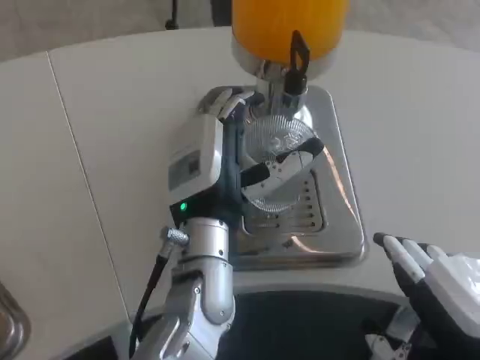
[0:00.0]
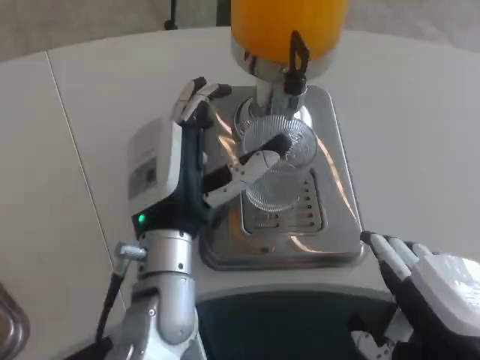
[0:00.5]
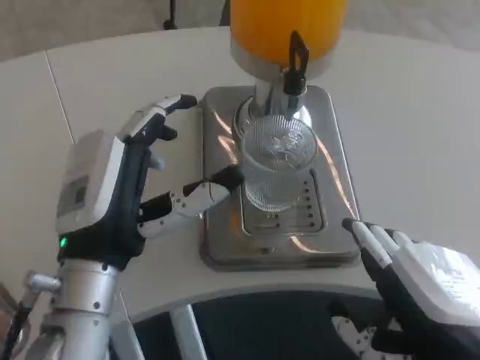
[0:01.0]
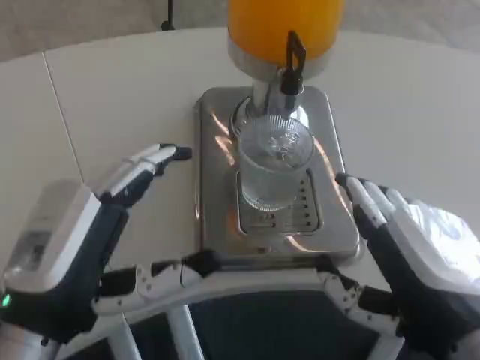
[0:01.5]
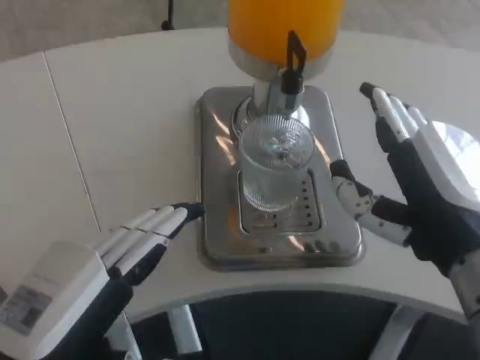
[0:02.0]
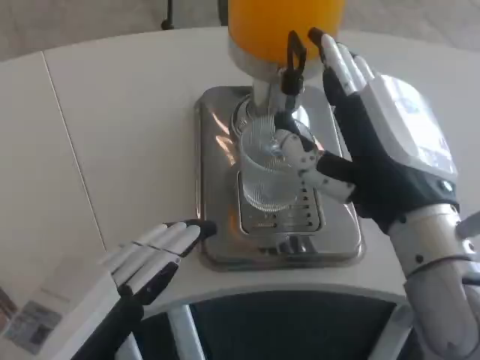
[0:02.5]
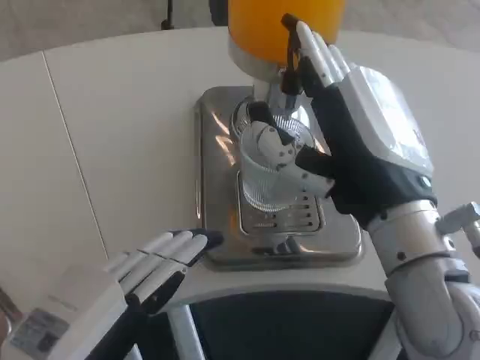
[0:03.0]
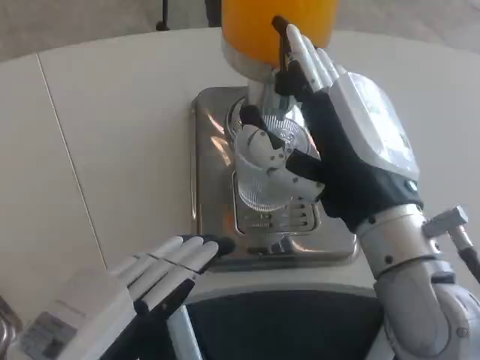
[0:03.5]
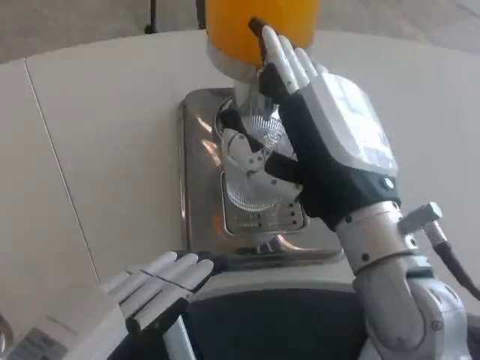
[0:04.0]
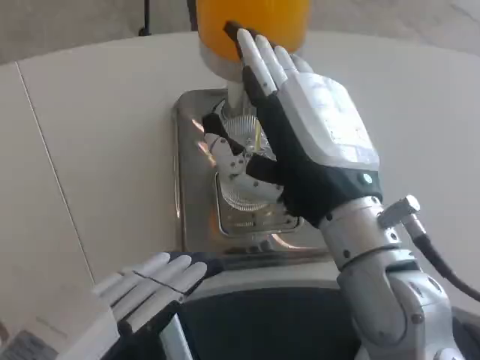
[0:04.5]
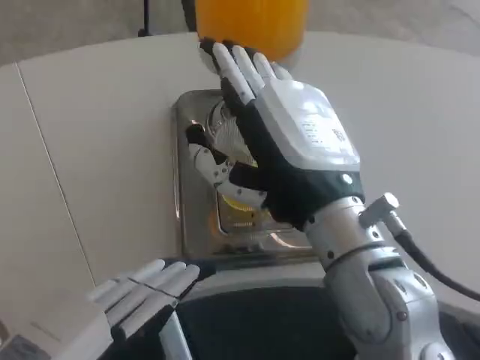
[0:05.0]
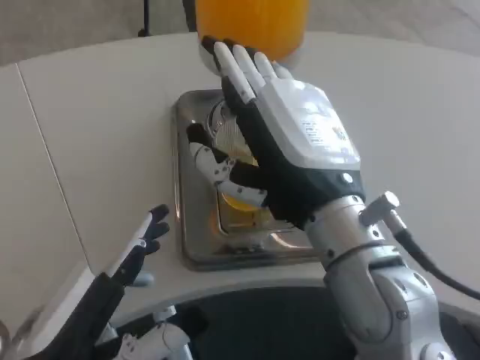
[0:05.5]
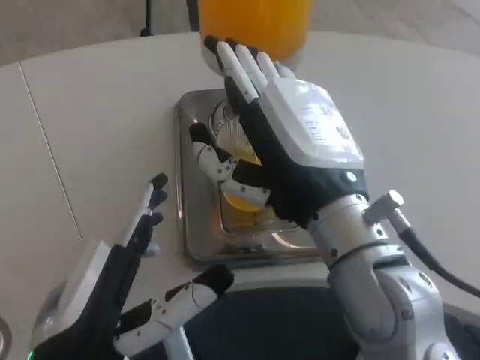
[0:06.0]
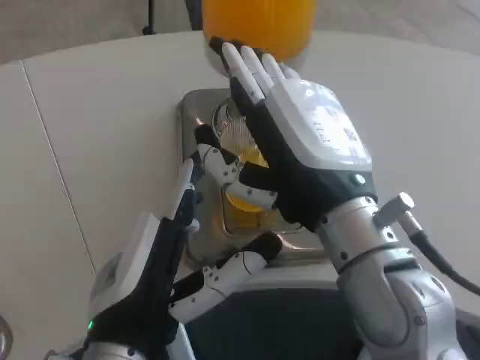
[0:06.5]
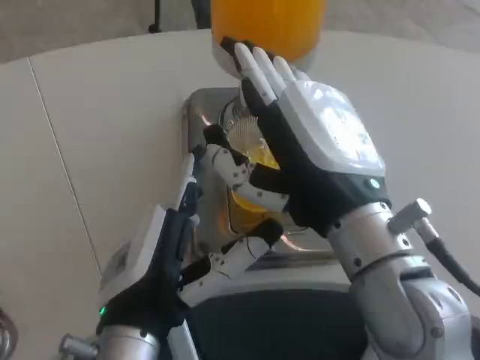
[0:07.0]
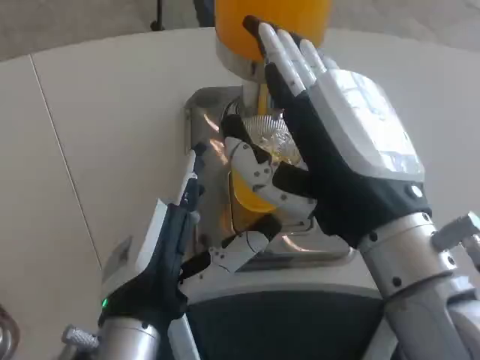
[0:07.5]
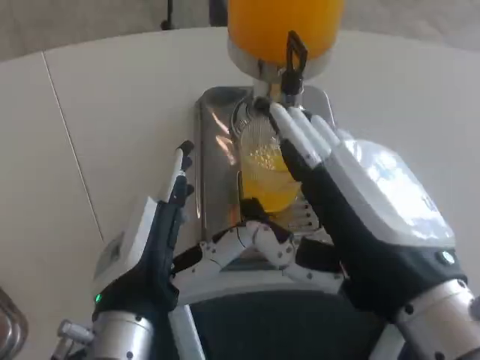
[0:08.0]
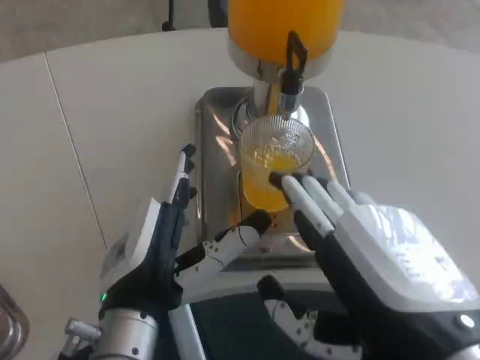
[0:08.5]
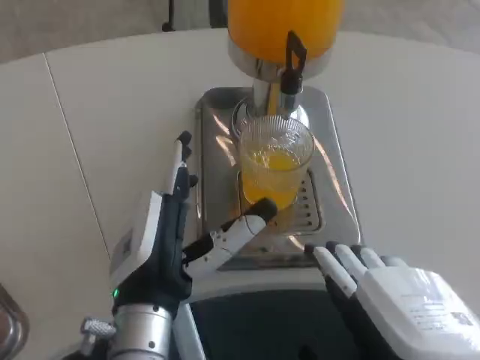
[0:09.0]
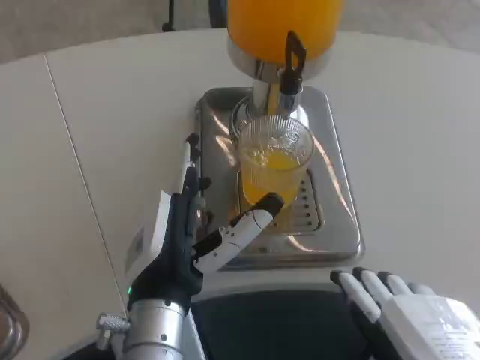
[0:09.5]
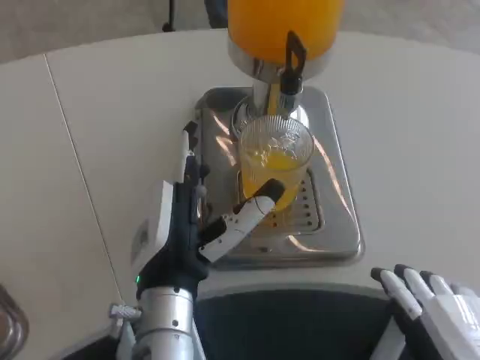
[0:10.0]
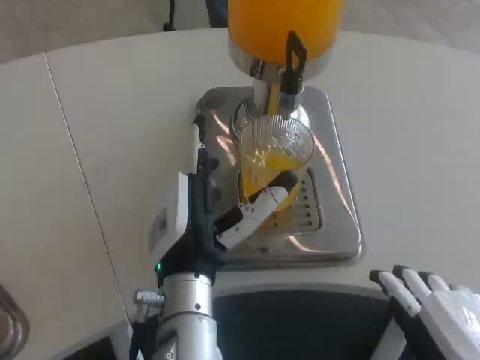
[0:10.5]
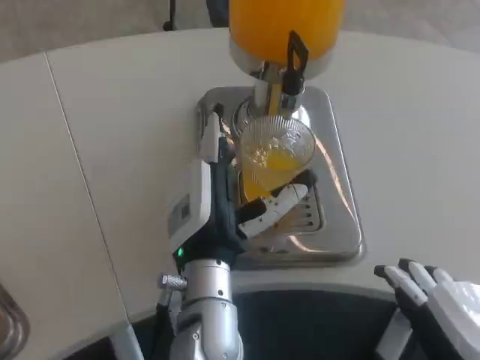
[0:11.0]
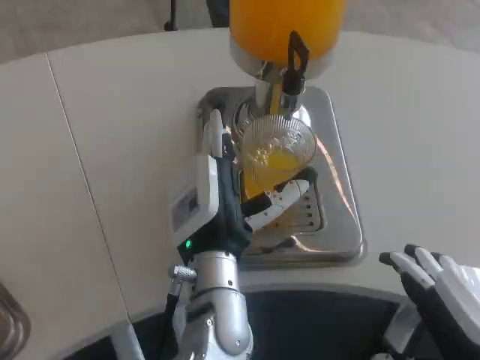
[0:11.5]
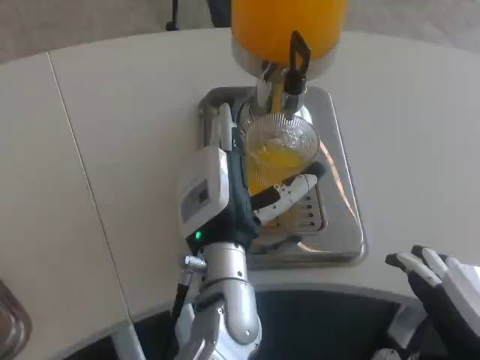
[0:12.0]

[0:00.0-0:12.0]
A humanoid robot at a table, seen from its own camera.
Task of the whole recording: Grasp the cup under the faucet to collect the drink, then remove the cup.
0:00.0 to 0:02.0: The right hand travels forward by about 5 cm; the left hand heads to the left and backward, covering some 25 cm.
0:02.0 to 0:04.0: The right hand heads to the left, covering approximately 5 cm.
0:04.0 to 0:06.0: The left hand heads to the right, covering roughly 5 cm.
0:06.0 to 0:08.0: The right hand heads backward, covering some 10 cm, while the left hand shifts some 5 cm forward.
0:08.0 to 0:10.0: The left hand changes place by some 5 cm. Meanwhile the right hand heads backward, covering approximately 5 cm.
0:10.0 to 0:12.0: The left hand travels forward and to the right by roughly 10 cm.

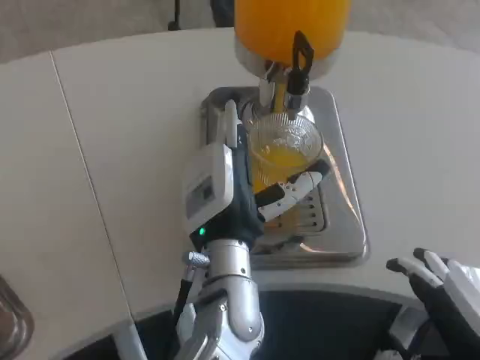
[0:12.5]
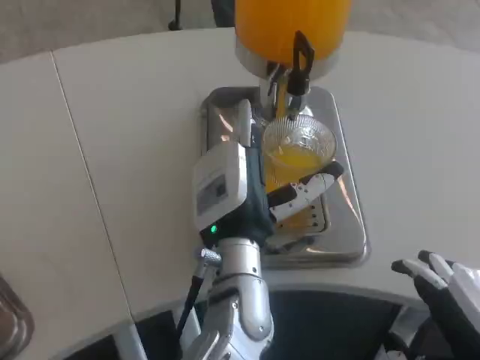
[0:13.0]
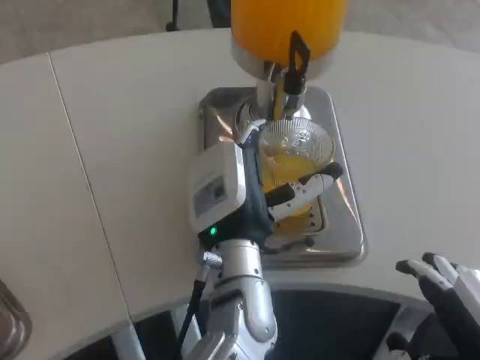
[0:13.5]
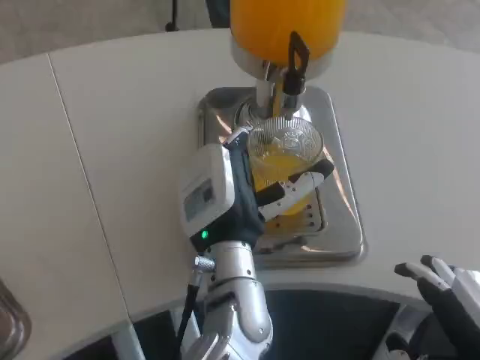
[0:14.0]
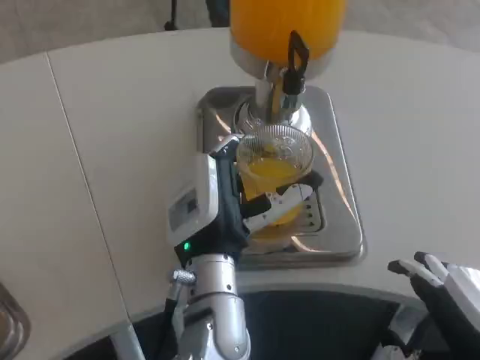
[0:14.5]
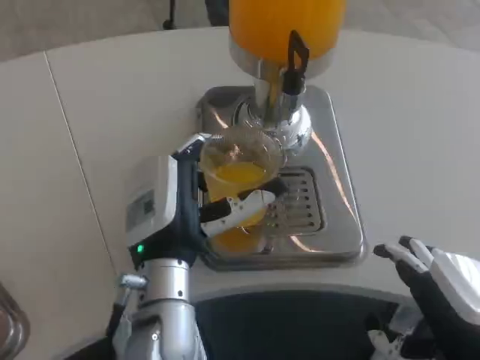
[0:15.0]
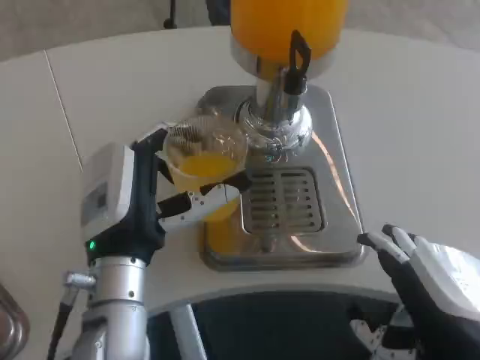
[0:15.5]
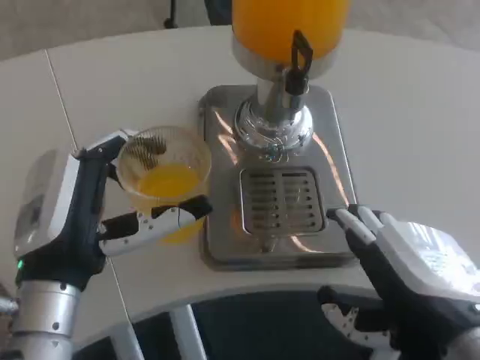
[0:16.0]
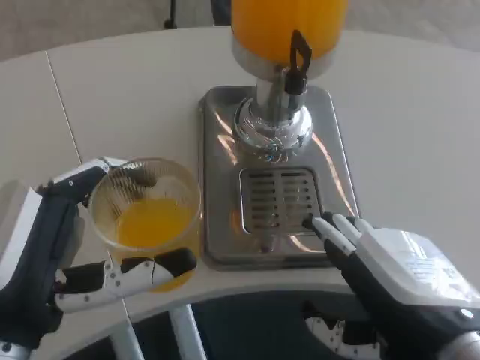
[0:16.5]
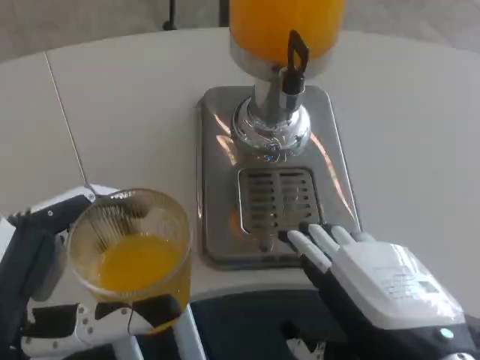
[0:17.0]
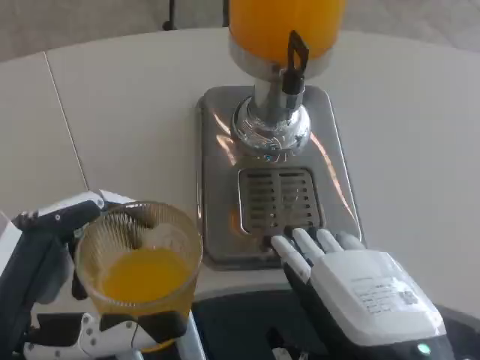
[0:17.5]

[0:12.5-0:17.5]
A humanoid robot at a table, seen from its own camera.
Task of the whole recording: Grasp the cup under the faucet to collect the drink, then remove the cup.
0:12.5 to 0:15.0: The left hand shifts some 5 cm to the left.
0:15.0 to 0:17.5: The right hand shifts by about 5 cm; the left hand travels backward and to the left by approximately 20 cm.

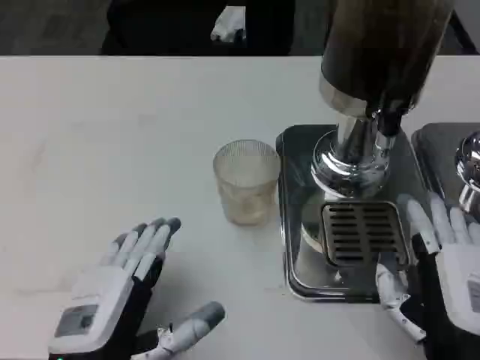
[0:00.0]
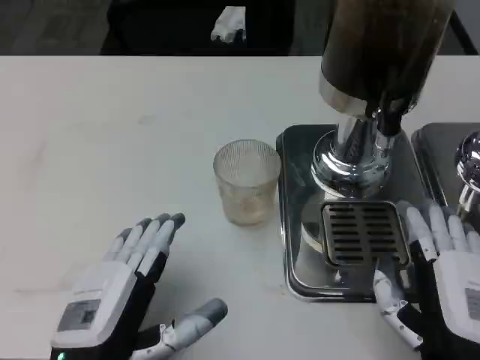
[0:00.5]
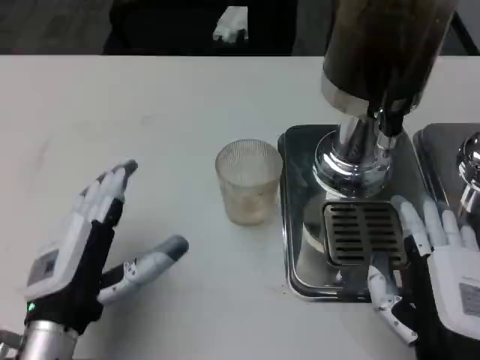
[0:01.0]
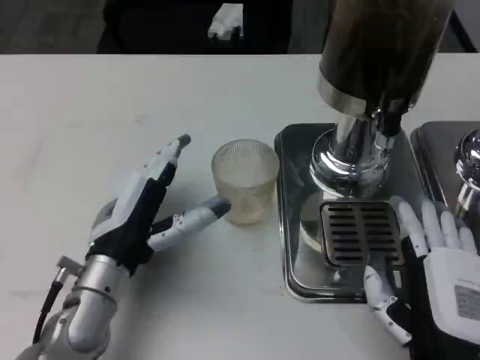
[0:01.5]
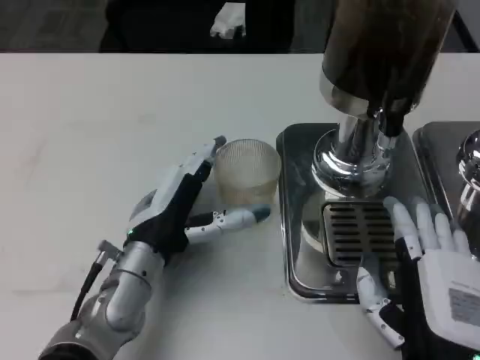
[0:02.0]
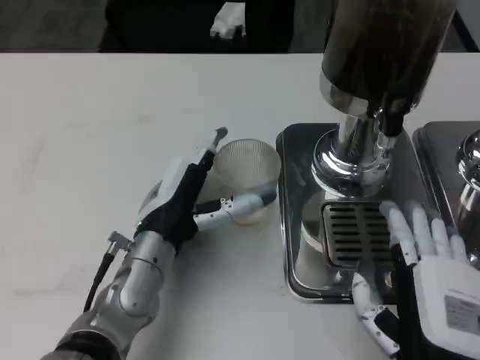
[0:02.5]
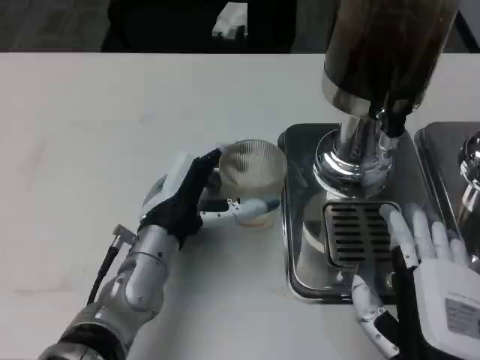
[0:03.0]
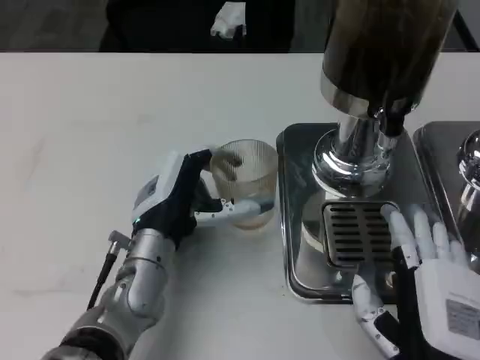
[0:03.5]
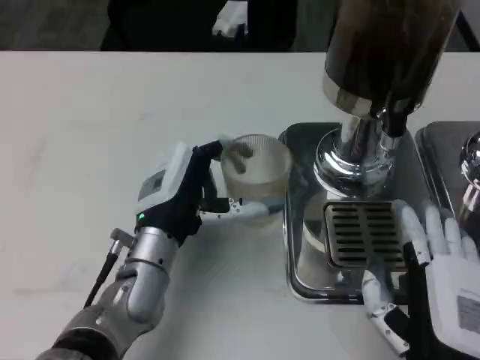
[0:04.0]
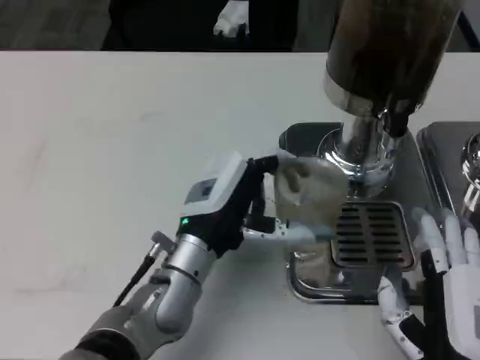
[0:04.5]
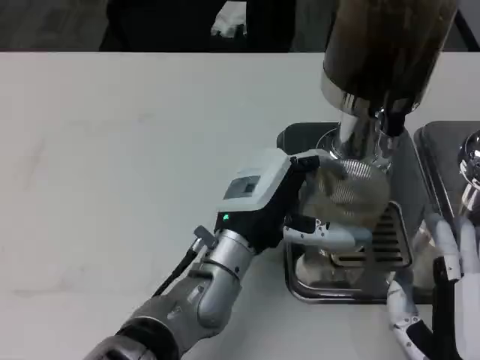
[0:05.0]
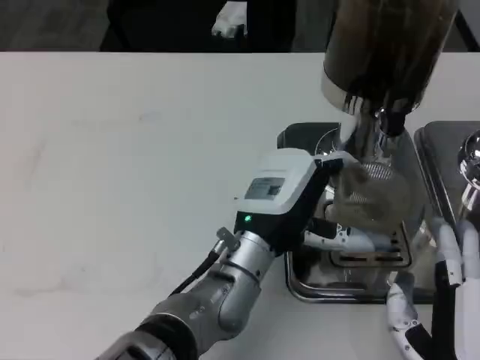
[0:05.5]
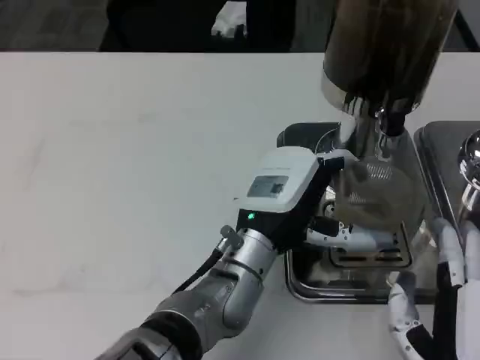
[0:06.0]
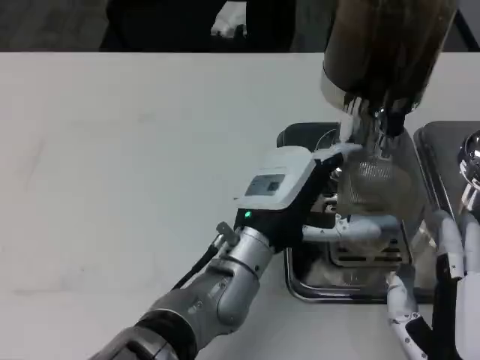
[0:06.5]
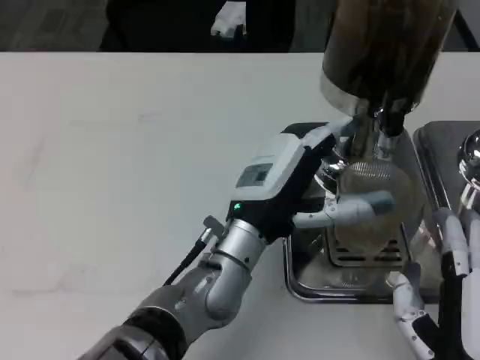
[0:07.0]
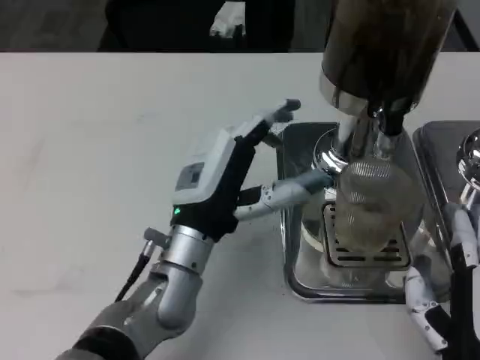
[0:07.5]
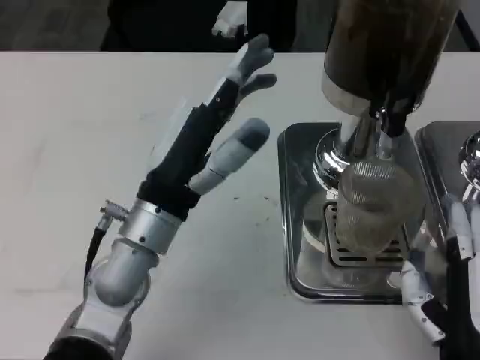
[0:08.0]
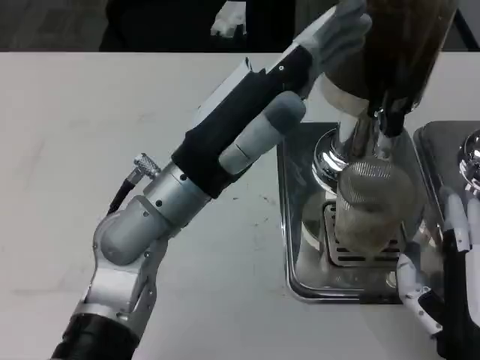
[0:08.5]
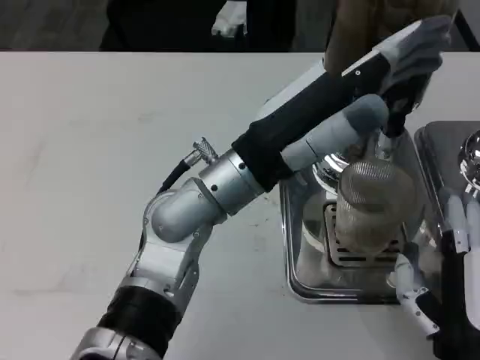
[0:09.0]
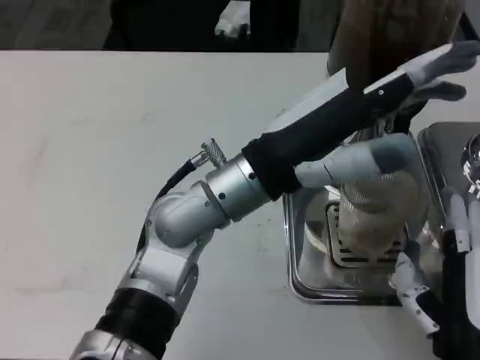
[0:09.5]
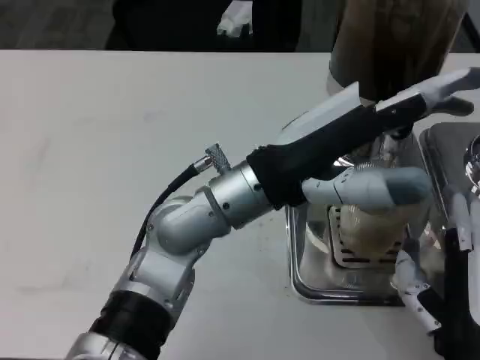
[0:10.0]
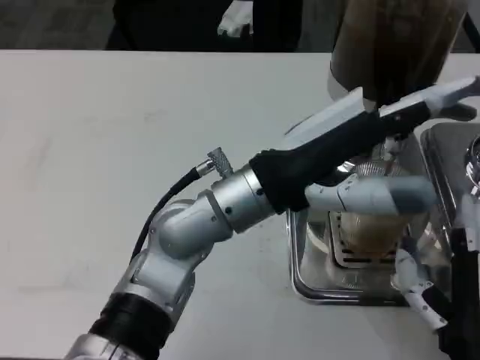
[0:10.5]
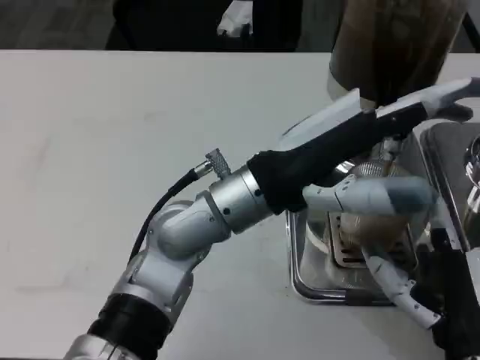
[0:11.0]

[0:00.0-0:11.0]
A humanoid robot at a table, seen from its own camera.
Task of the whole recording: Grasp the cup under the faucet to collect the drink, then remove the cup.
0:00.0 to 0:02.0: The left hand heads forward, covering approximately 15 cm.
0:02.0 to 0:03.5: The hands make only small movements.
0:03.5 to 0:05.5: The left hand goes about 10 cm to the right.
0:05.5 to 0:07.5: The left hand travels to the left by approximately 5 cm.
0:07.5 to 0:09.0: The left hand is displaced upward by approximately 10 cm.
